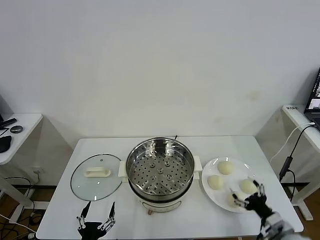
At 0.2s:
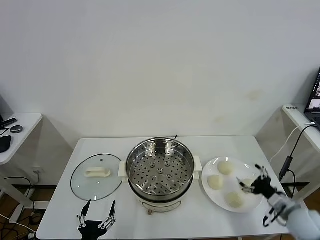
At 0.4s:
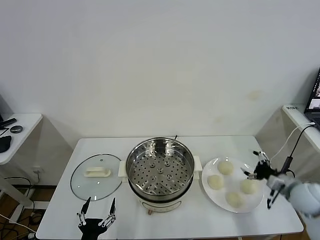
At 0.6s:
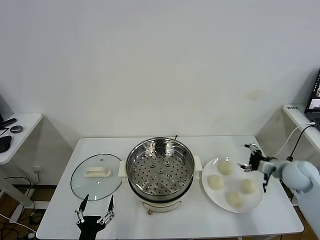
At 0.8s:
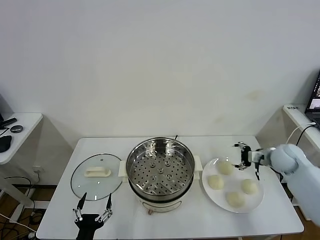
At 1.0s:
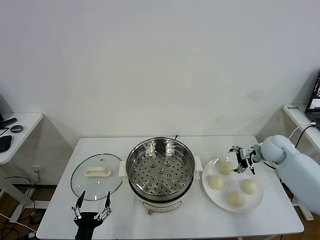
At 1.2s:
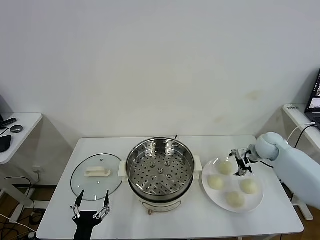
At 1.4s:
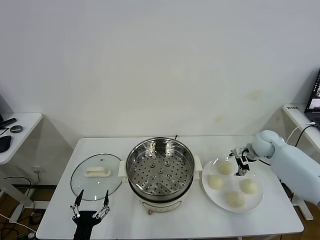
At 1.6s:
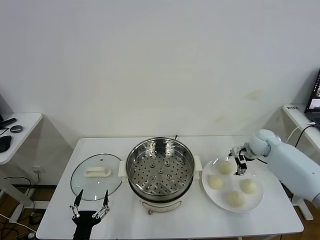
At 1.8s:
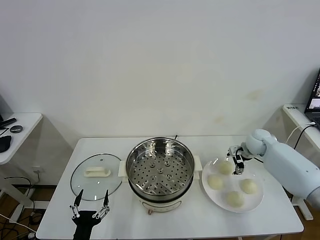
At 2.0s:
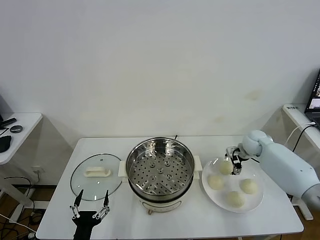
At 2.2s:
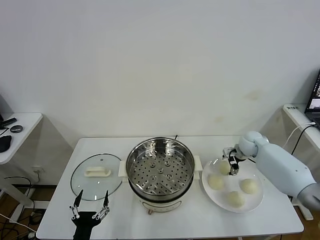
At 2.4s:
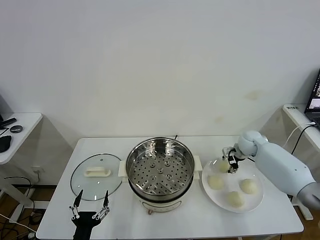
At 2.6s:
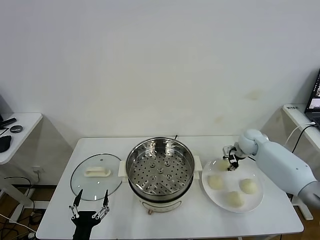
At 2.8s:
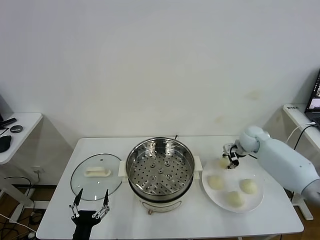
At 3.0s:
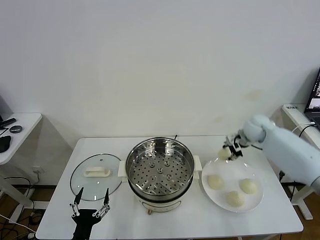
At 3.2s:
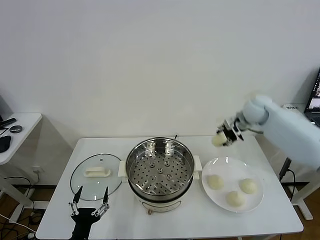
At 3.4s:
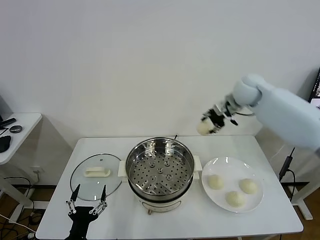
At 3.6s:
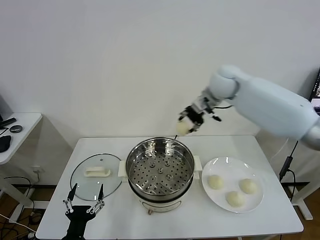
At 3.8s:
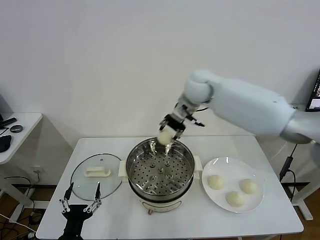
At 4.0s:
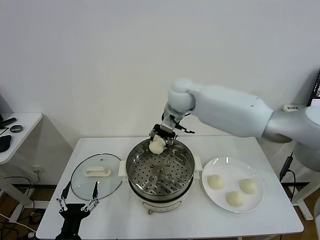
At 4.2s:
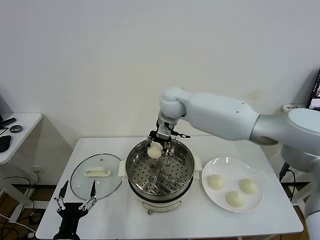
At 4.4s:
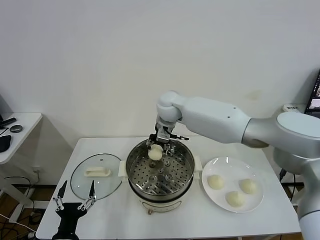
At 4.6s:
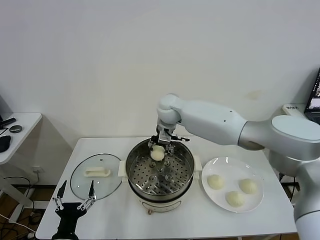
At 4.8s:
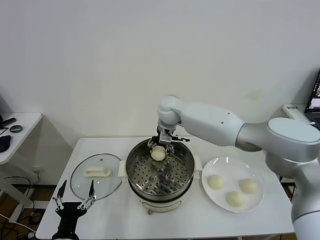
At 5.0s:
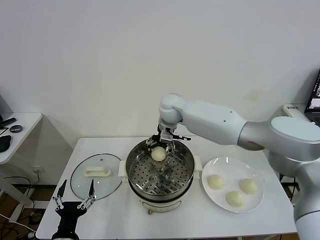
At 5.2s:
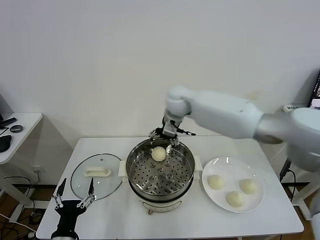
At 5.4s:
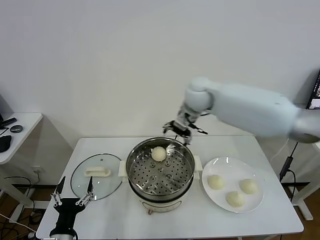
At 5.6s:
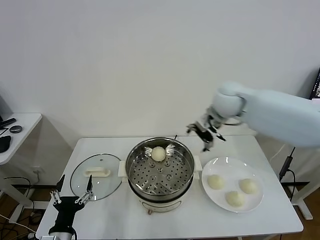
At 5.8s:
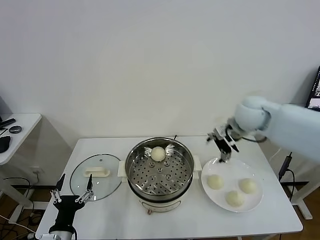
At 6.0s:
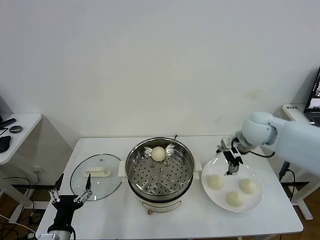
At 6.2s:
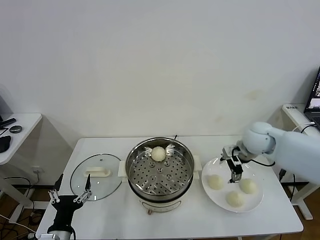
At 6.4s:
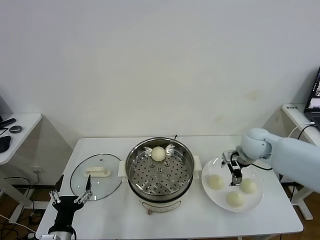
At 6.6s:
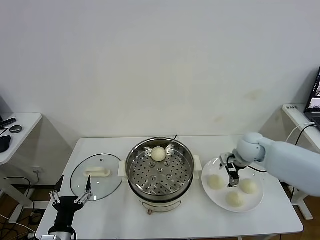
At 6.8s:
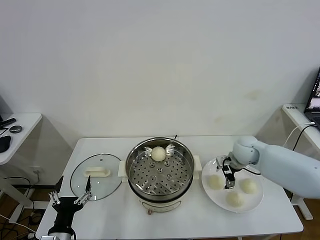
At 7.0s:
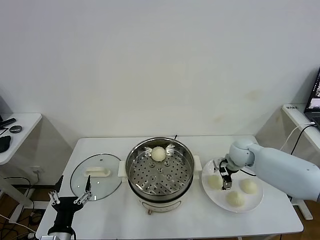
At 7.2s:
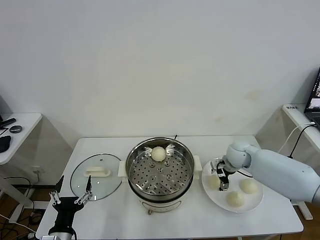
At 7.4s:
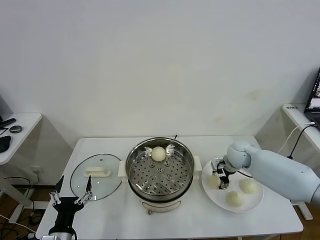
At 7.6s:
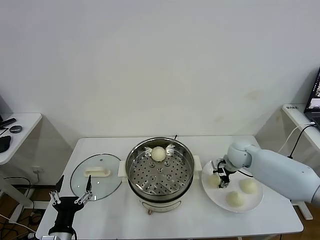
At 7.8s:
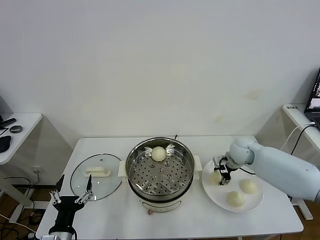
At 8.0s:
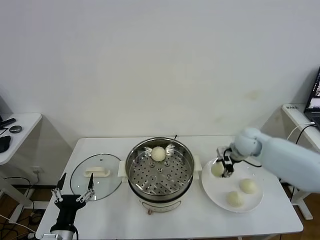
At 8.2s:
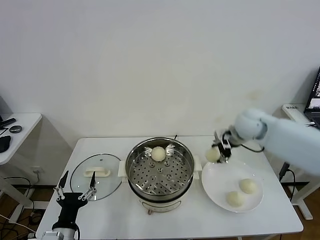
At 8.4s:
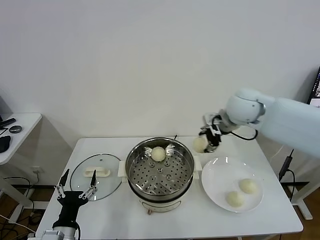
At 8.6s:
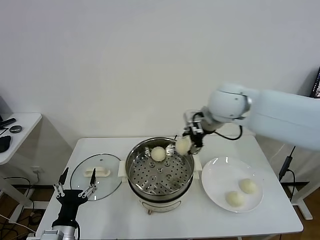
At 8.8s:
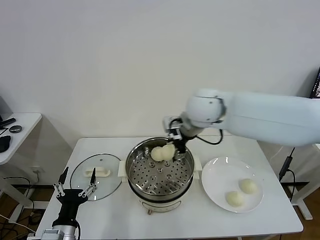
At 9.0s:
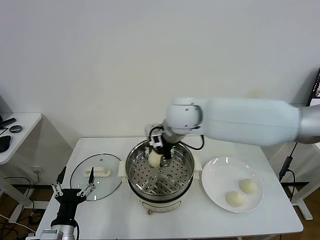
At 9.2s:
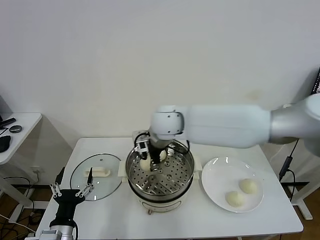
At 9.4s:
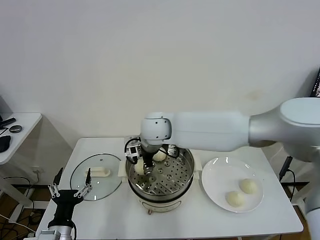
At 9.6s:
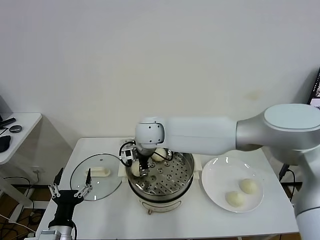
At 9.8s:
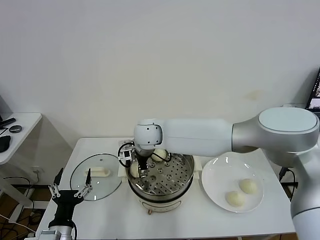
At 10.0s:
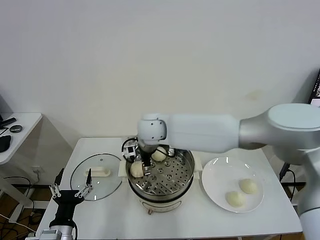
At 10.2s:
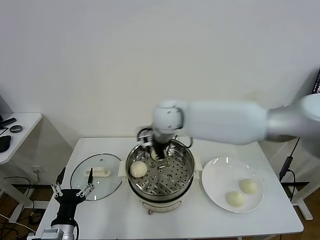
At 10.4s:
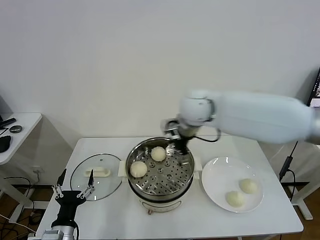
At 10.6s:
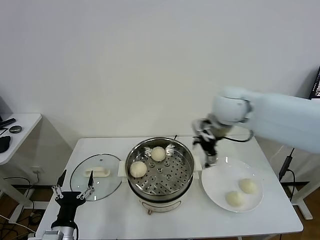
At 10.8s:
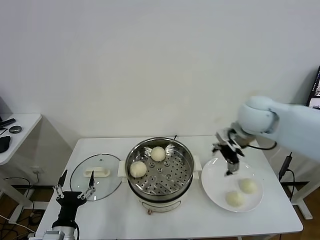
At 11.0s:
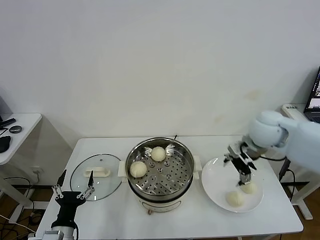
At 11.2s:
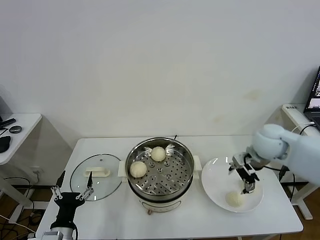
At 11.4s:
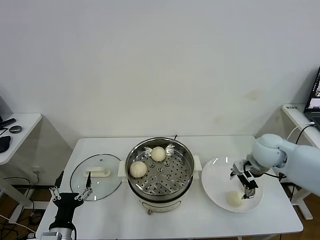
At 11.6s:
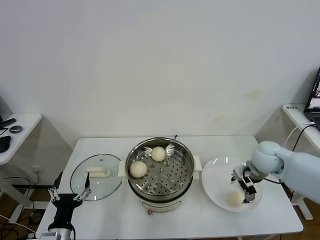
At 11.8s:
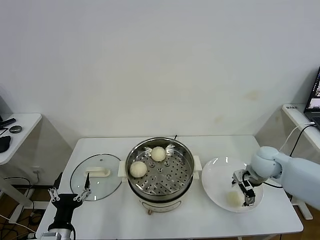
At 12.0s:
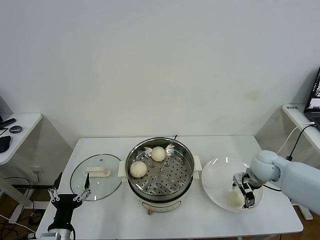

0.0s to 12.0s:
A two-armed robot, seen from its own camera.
Task of the whole recording: take steamed baozi put them in steamer.
Step, 0.0s to 2.4s: Grasp the baozi in the plate with right gripper.
Step, 2.6s to 5.0s: Place the baozi on the steamer with right gripper.
Step, 5.2s to 7.4s: Grasp the baozi in the plate with right gripper.
Step, 7.6s to 10.0s: Place the baozi on the steamer with right gripper.
1.6s to 3.0s: The right gripper travels upward by about 10 cm, and closes.
3.0s to 4.4s: The right gripper shifts about 30 cm to the left.
4.4s to 6.0s: The right gripper moves to the right, about 30 cm, and opens.
6.0s to 7.6s: The right gripper heads downward, covering about 15 cm, and closes up.
7.6s to 9.0s: The right gripper is displaced to the left and upward by about 35 cm.
9.0s to 10.4s: The right gripper travels to the right by about 10 cm, and opens its fingers.
10.4s to 12.0s: The right gripper moves downward and to the right, about 30 cm.

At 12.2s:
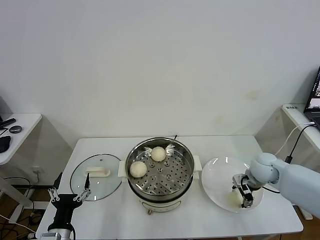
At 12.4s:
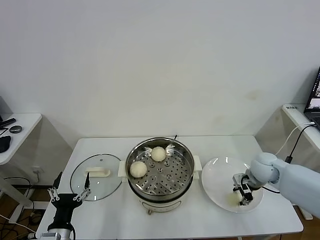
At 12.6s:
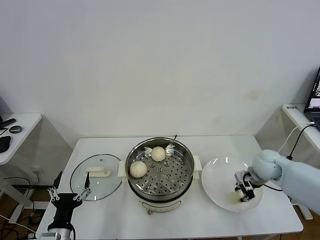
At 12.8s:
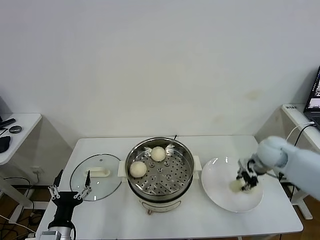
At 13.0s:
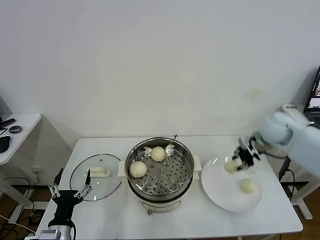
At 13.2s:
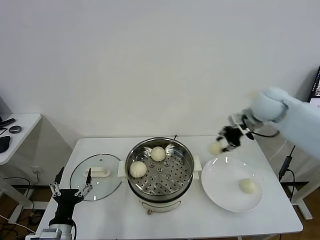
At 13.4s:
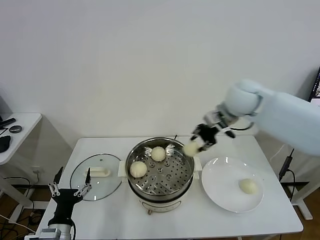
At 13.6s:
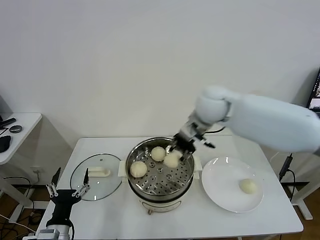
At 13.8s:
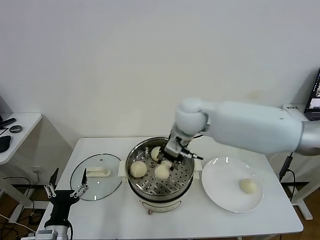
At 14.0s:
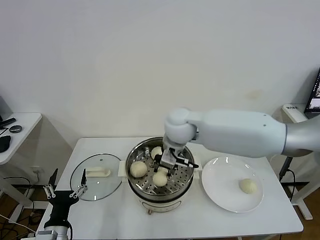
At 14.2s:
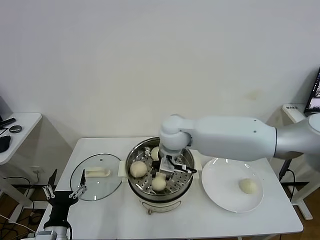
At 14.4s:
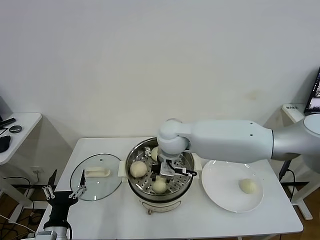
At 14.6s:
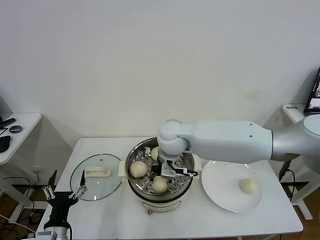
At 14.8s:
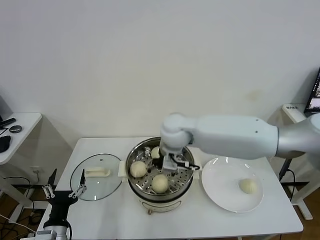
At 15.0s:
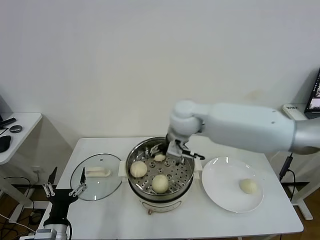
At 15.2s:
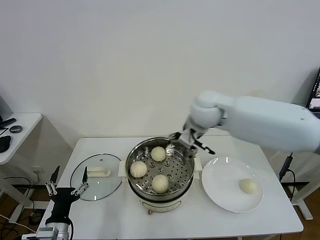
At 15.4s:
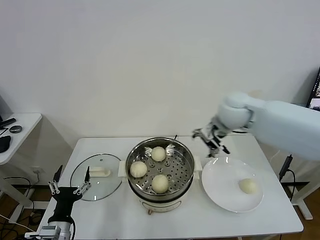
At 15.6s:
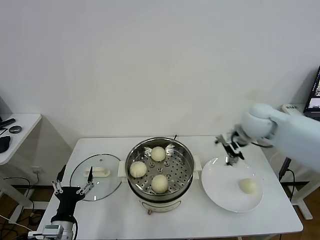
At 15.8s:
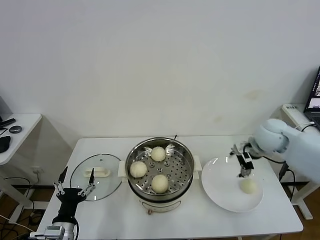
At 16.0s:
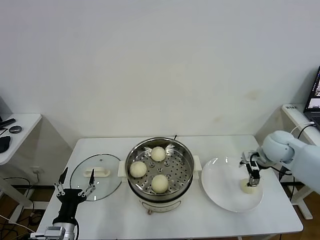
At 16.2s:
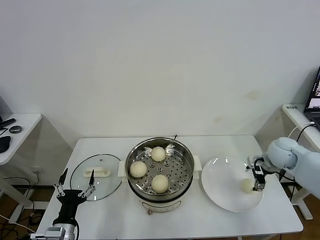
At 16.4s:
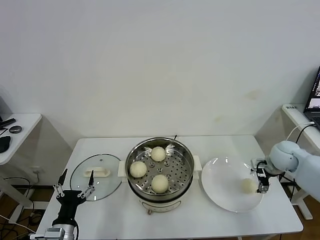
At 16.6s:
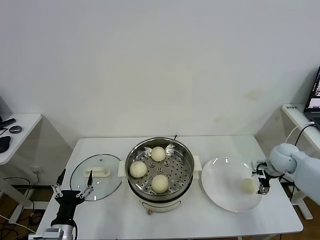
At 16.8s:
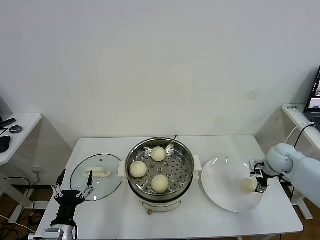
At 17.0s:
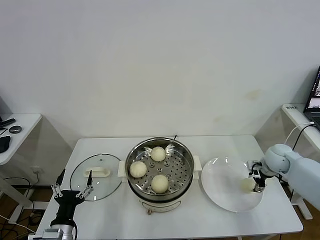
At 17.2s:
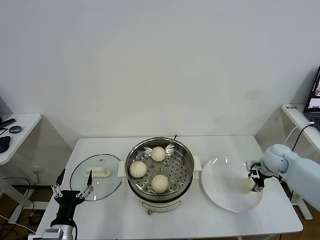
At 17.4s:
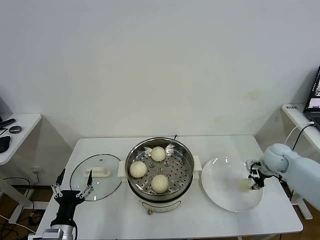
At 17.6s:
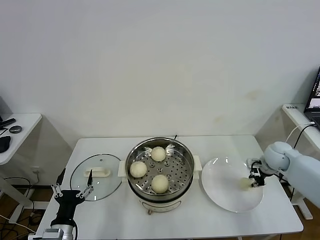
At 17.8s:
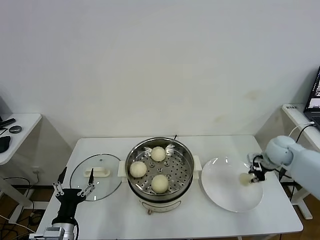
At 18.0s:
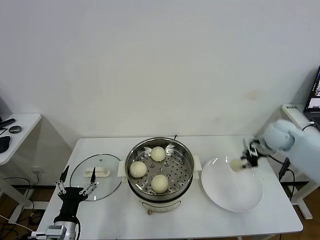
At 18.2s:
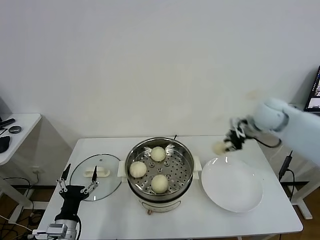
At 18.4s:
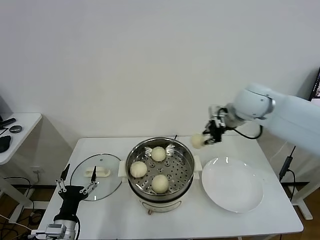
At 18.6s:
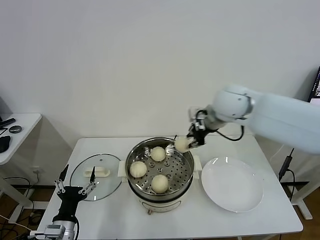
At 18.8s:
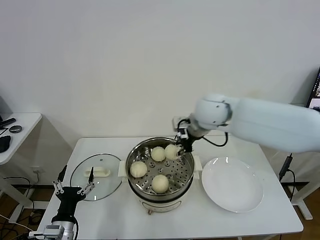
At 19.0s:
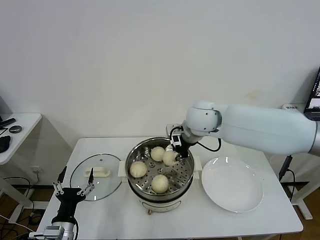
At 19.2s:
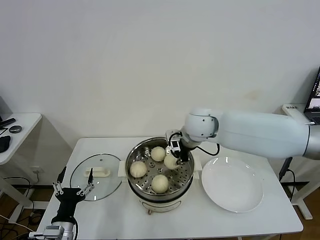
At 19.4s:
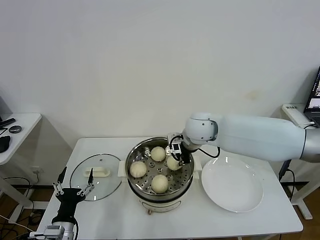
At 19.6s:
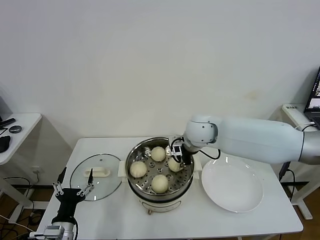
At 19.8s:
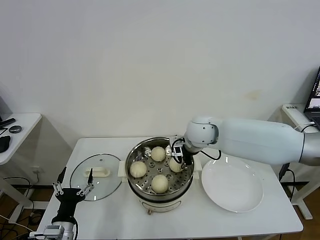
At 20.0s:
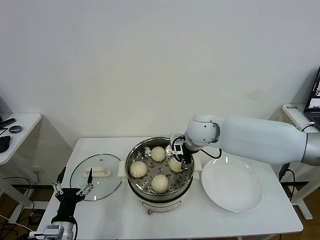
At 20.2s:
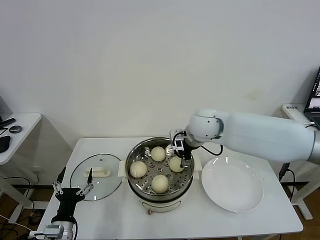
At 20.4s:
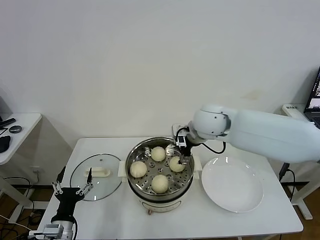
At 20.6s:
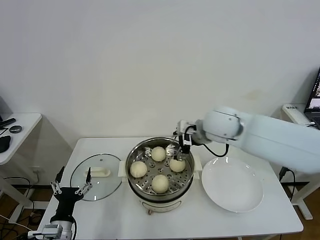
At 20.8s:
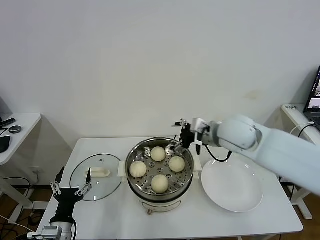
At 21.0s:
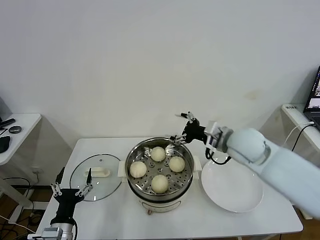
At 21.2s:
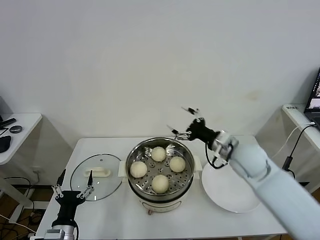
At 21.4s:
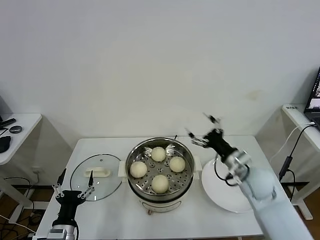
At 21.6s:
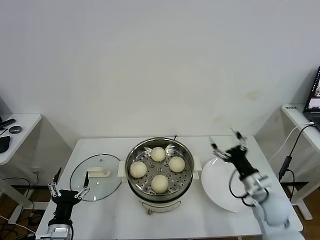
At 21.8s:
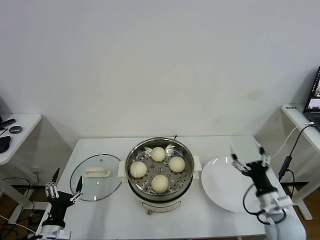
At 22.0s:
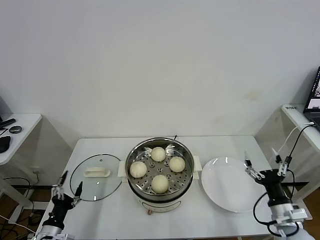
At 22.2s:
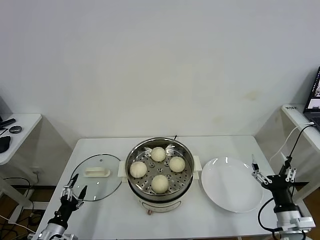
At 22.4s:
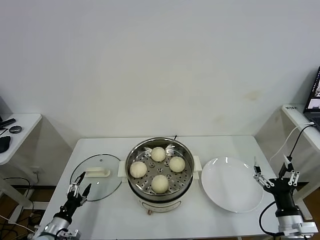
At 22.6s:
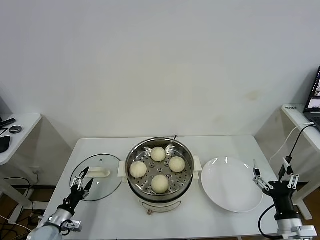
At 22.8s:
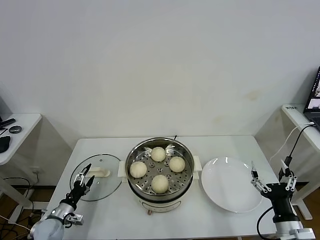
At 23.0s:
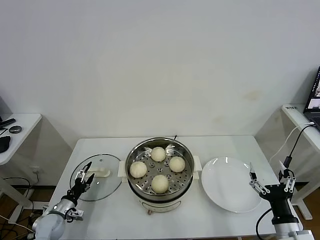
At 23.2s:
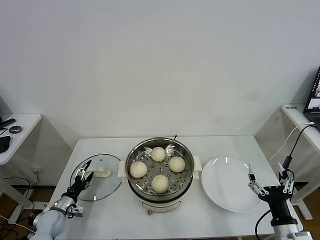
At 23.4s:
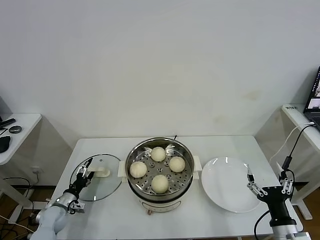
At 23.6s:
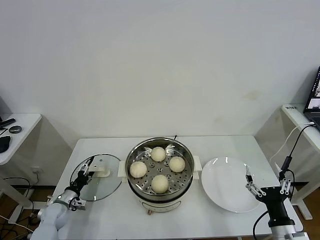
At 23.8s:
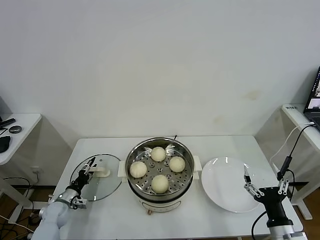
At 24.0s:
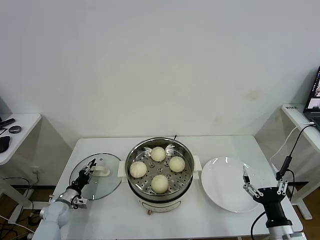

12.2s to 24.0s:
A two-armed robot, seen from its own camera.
Task of the whole recording: take steamed baozi put them in steamer.
Step, 12.6s to 14.8s: Place the baozi on the steamer with right gripper.
Step, 15.0s to 17.4s: Grasp the baozi in the plate with right gripper.
Step, 17.6s to 20.2s: Place the baozi on the steamer with right gripper.
12.2s to 13.6s: The right gripper travels to the left and upward by some 30 cm, and closes its fingers.
13.6s to 15.2s: The right gripper goes to the left and returns, about 10 cm each way, and opens up.
15.2s to 16.6s: The right gripper moves to the right and downward, roughly 35 cm.
16.6s to 18.2s: The right gripper is displaced upward and to the left by some 20 cm, and closes up.
18.2s to 19.6s: The right gripper heads to the left, covering roughly 20 cm.
19.6s to 21.0s: The right gripper travels to the right and backward by about 15 cm, and opens up.
21.0s to 22.6s: The left gripper shifts approximately 15 cm to the left, downward and forward; the right gripper heads backward, downward and to the right, covering about 35 cm.
22.6s to 24.0s: The left gripper is displaced forward by about 10 cm, and closes its fingers.
